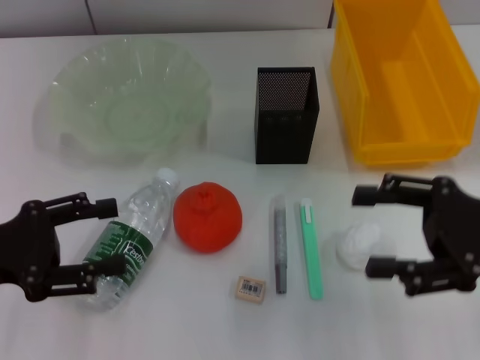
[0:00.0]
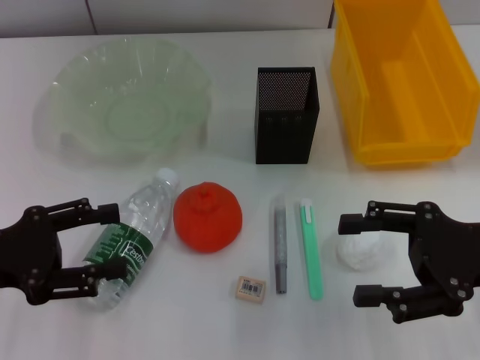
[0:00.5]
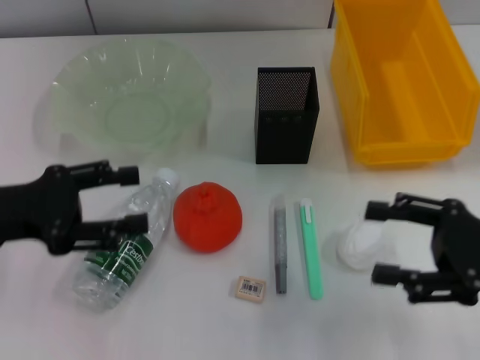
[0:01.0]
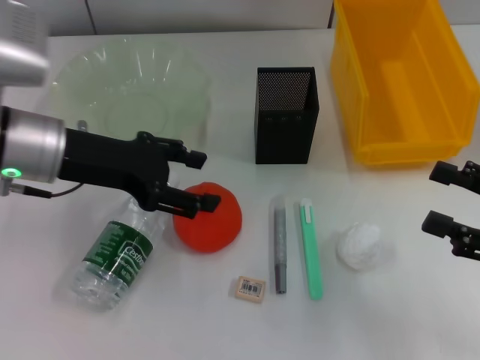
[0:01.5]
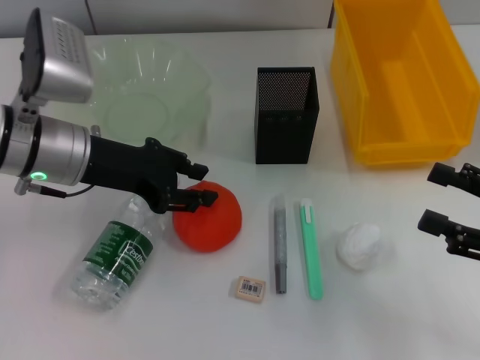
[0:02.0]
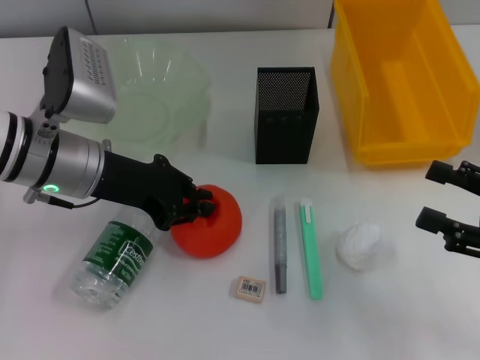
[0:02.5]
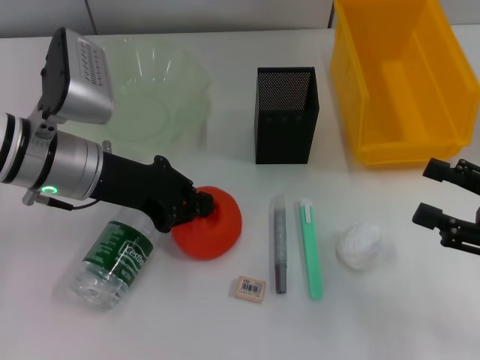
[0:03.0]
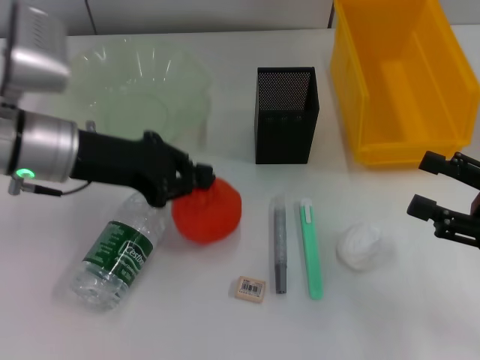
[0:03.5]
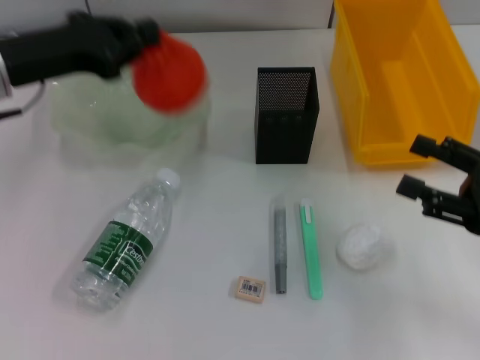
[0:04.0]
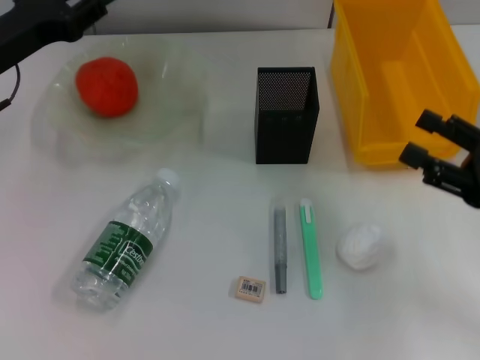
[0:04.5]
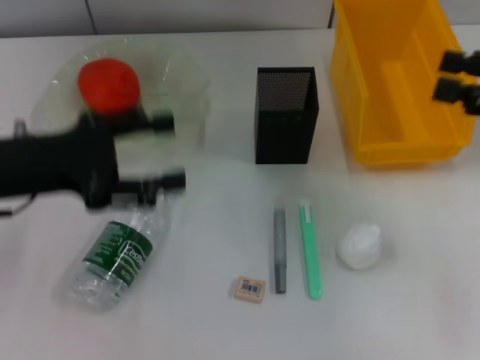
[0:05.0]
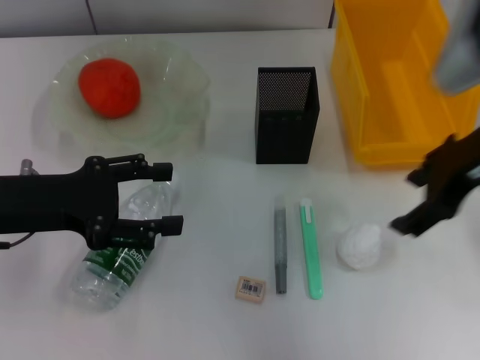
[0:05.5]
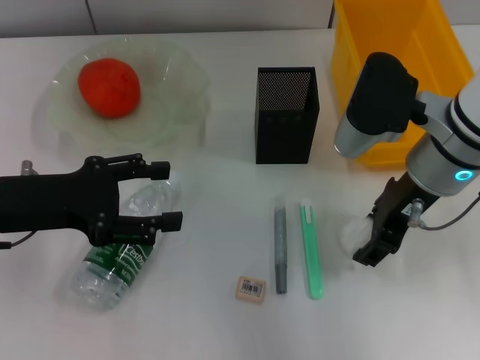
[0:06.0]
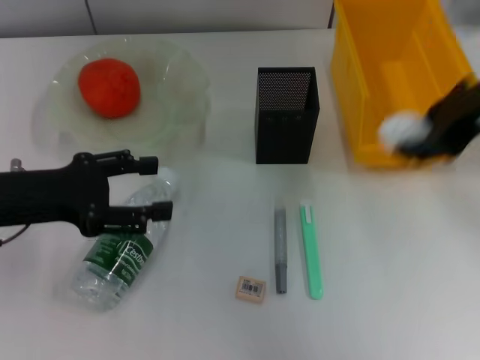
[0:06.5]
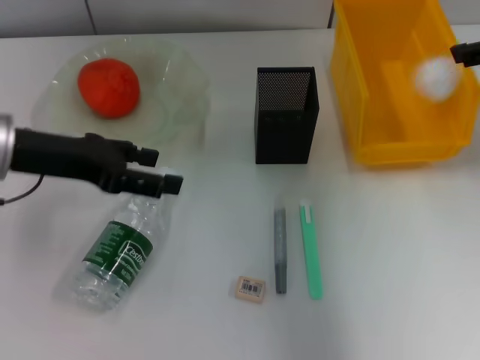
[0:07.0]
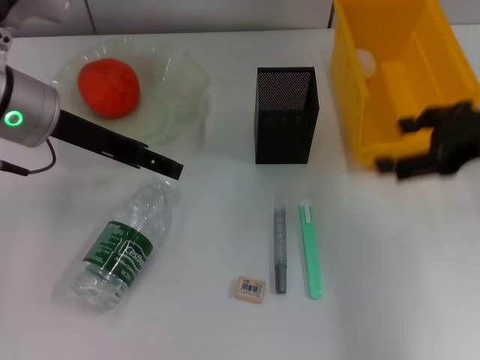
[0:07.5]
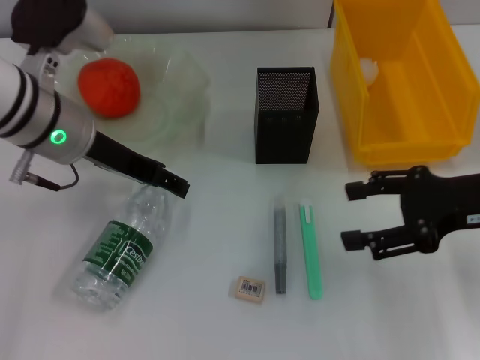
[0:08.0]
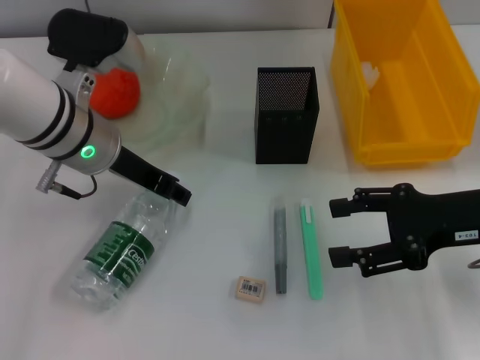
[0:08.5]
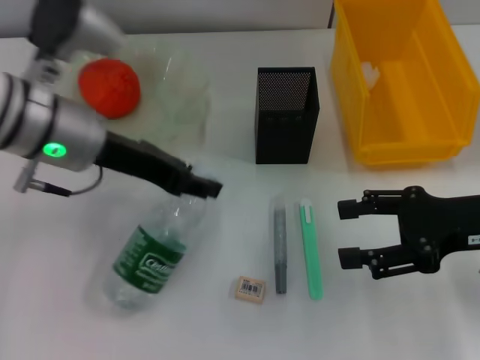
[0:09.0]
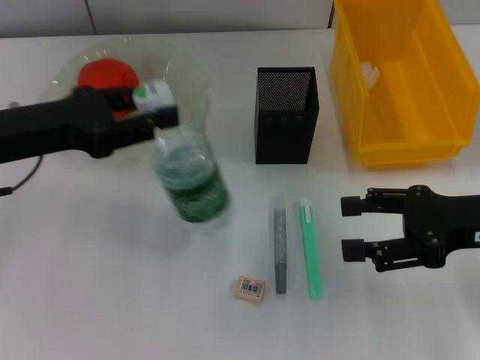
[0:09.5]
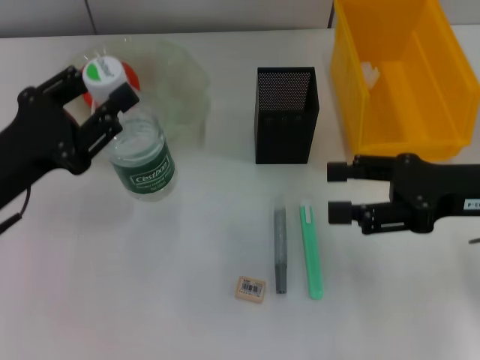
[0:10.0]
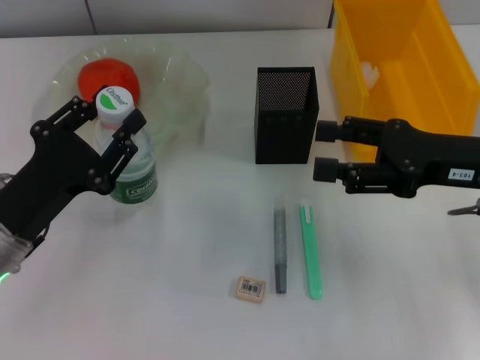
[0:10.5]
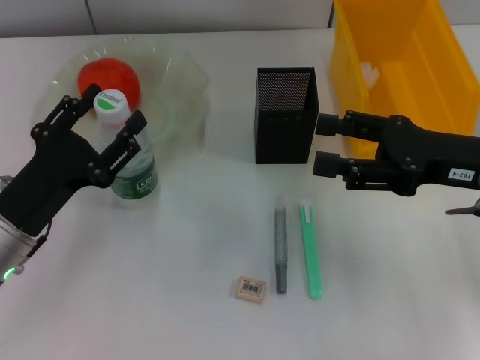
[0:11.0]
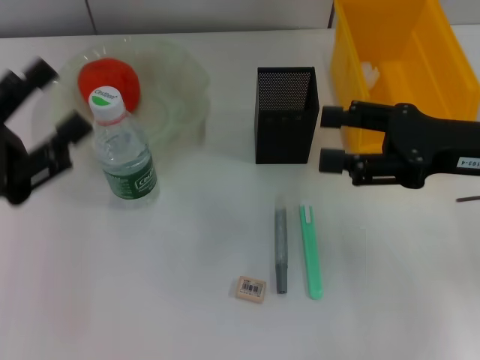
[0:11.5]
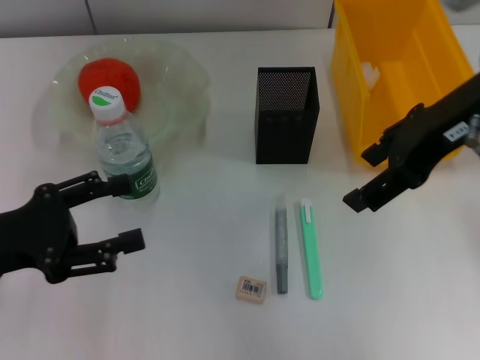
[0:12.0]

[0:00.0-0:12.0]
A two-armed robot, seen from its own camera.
Step, 0:00.0 to 0:03.0: Grab the orange with the left hand.
Step, 0:03.5 to 0:04.5: Place the orange into the fruit bowl with the left hand.
Step, 0:05.0 to 0:06.0: Grab the paper ball with the right hand.
Step, 0:06.5 to 0:07.0: Place the paper ball into the trash can with the right hand.
Step, 0:07.5 to 0:08.5: Grab the water bottle with the left hand.
Step, 0:09.0 to 0:10.5: Place the water bottle on the table with the left hand.
0:00.0 to 0:02.0: The right gripper is displaced to the right by some 5 cm. The left gripper heads forward and to the right, covering about 15 cm.
0:02.0 to 0:04.0: The left gripper heads to the left, covering some 5 cm, and closes.
0:04.0 to 0:06.0: The right gripper goes approximately 20 cm to the left, forward and upward. The left gripper goes some 10 cm backward and downward, and opens up.
0:06.0 to 0:08.0: The left gripper travels to the right and forward by about 10 cm; the right gripper is displaced to the right by about 10 cm, and closes and opens again.
0:08.0 to 0:10.0: The left gripper travels backward, to the left and downward by approximately 15 cm, and closes its fingers.
0:10.0 to 0:12.0: The right gripper moves upward and to the left, approximately 15 cm. Meanwhile the left gripper opens its fingers.

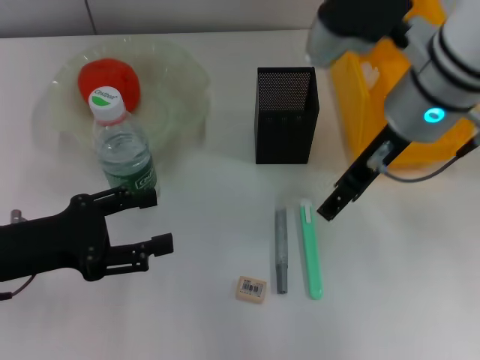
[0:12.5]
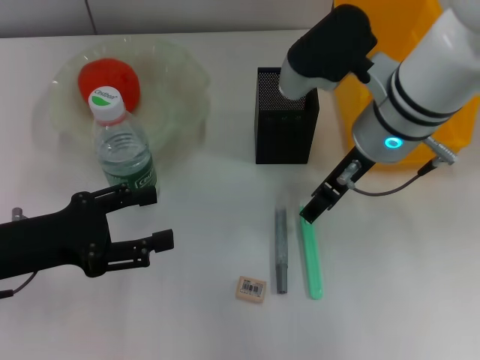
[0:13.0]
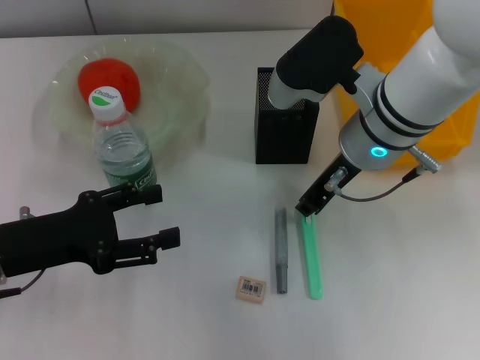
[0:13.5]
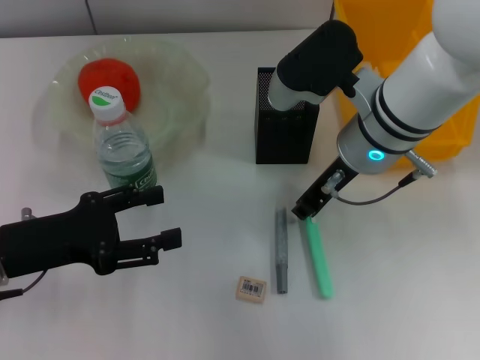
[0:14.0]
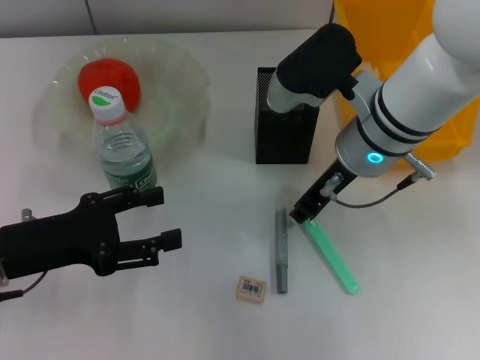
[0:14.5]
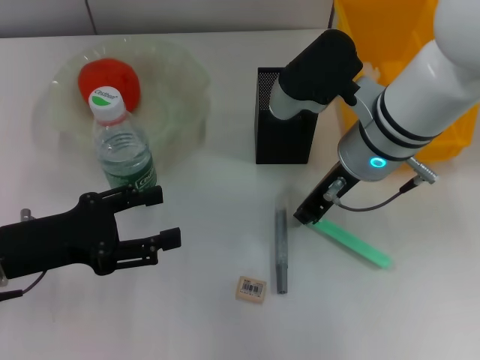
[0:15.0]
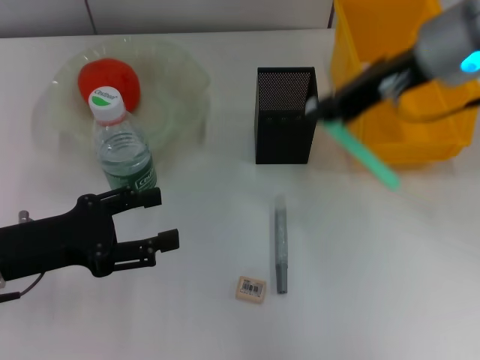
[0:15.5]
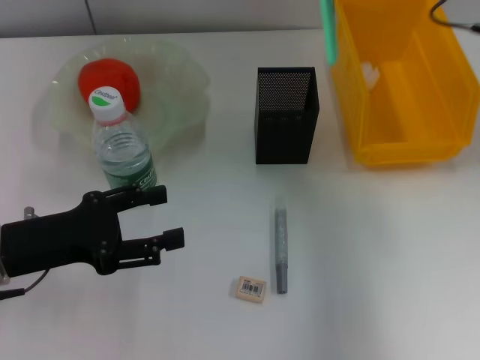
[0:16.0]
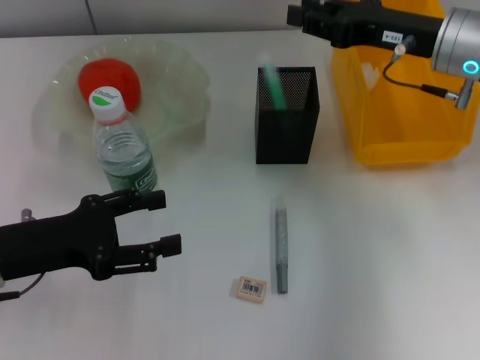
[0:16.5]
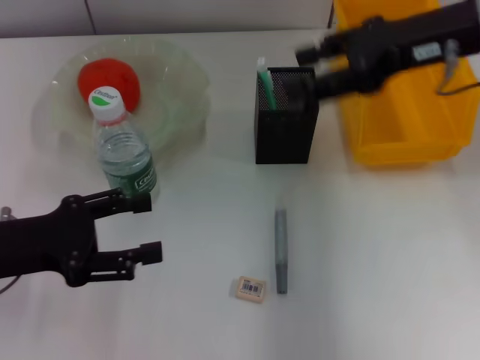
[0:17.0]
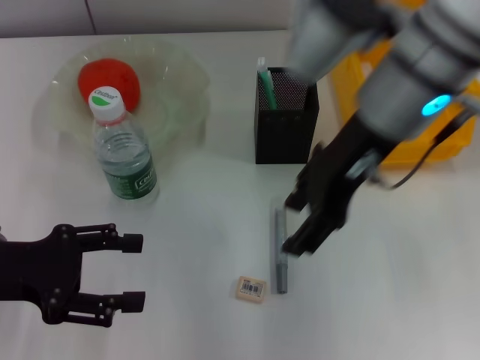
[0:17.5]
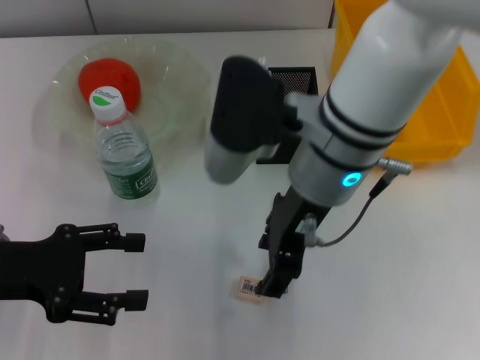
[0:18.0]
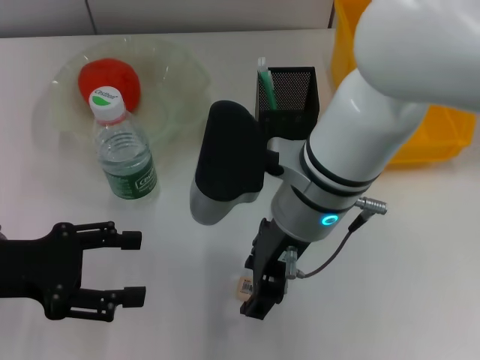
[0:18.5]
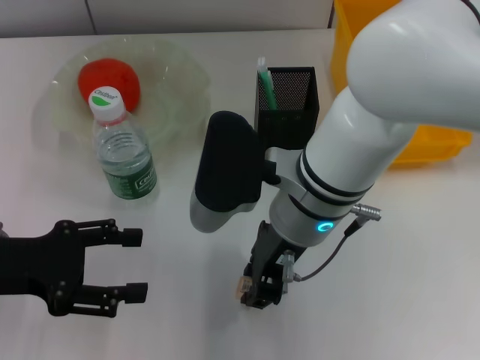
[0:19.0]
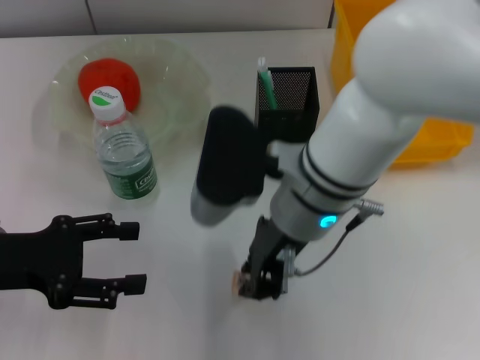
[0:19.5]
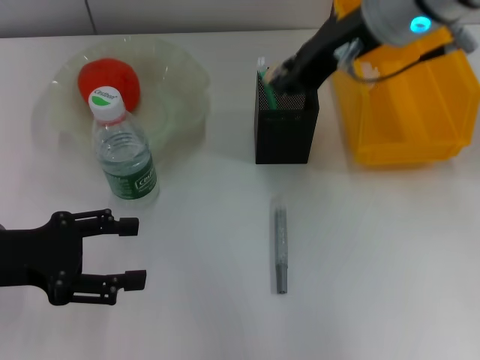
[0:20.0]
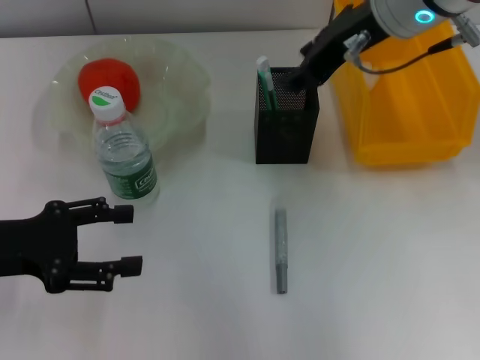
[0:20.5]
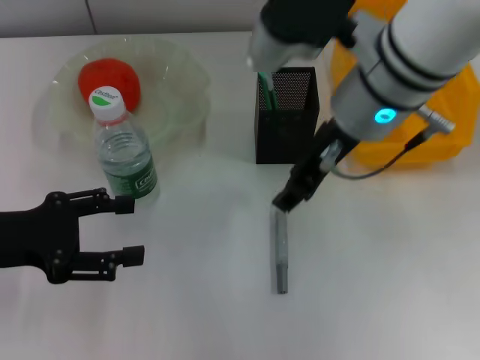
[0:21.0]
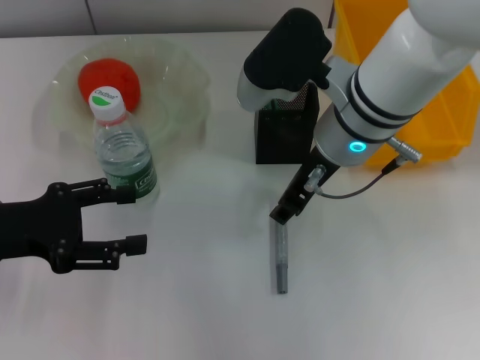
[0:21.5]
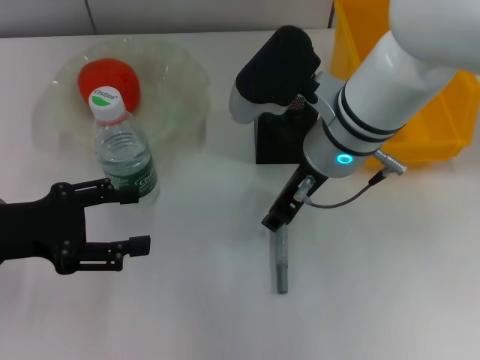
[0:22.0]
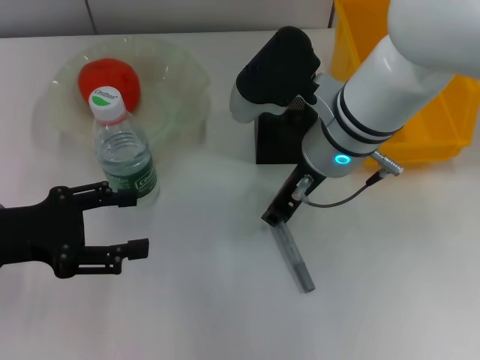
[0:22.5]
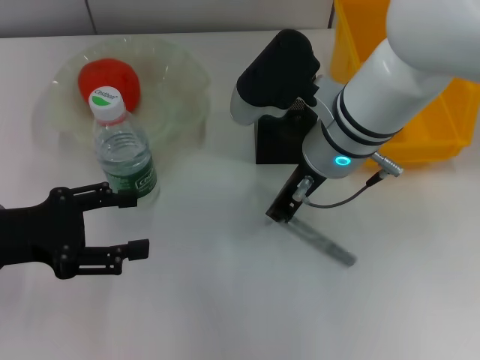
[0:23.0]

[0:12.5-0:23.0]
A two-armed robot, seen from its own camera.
Step, 0:12.5 to 0:14.5: Grab the blue utility knife with the right hand.
Step, 0:15.0 to 0:16.5: Place the blue utility knife into the pen holder with the right hand.
Step, 0:17.0 to 0:19.0: Grab the eraser with the right hand.
Step, 0:19.5 to 0:20.0: Put the eraser into the pen holder with the right hand.
0:12.5 to 0:14.5: The right gripper is displaced downward by approximately 5 cm, and closes up.
0:14.5 to 0:16.5: The right gripper goes some 10 cm to the right.
0:16.5 to 0:19.0: The right gripper shifts approximately 20 cm to the left and backward, and opens its fingers.
0:19.0 to 0:21.0: The right gripper shifts some 5 cm upward.
0:21.0 to 0:23.0: The right gripper heads downward, covering roughly 5 cm, and closes its fingers.

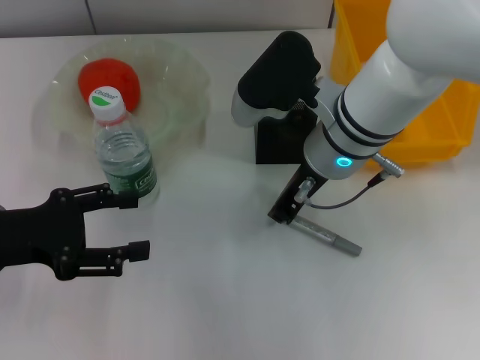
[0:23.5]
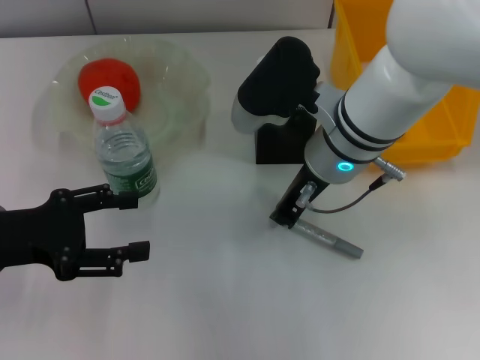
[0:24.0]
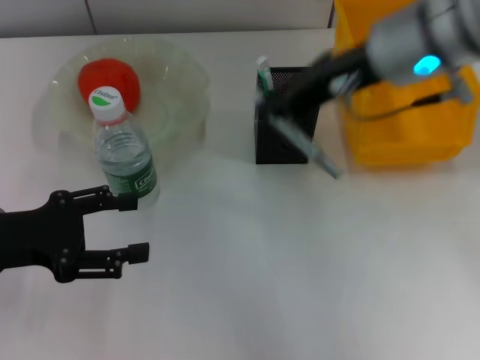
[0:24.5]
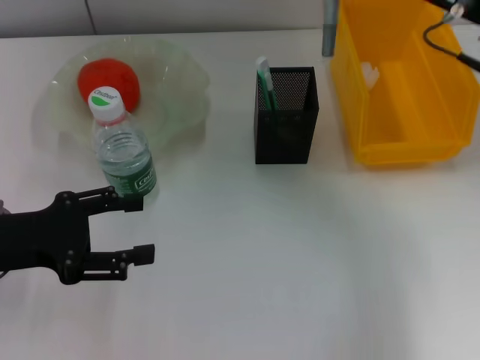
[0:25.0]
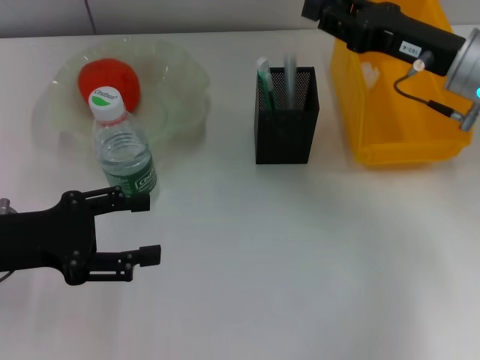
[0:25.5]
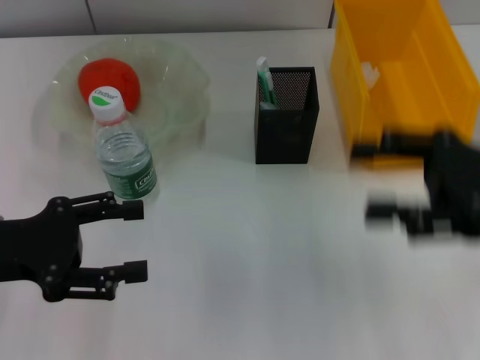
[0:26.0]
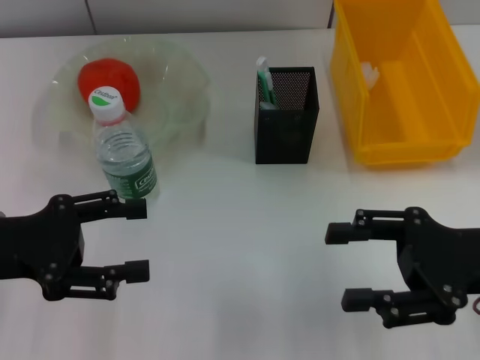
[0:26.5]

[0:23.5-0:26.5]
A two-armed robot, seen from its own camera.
Step, 0:24.0 to 0:25.5: Place the gray glue into the pen holder with the right hand.
0:23.5 to 0:25.0: The right gripper heads to the right, covering some 15 cm.
0:25.0 to 0:26.5: The right gripper heads backward and downward, covering approximately 15 cm, and opens its fingers.
